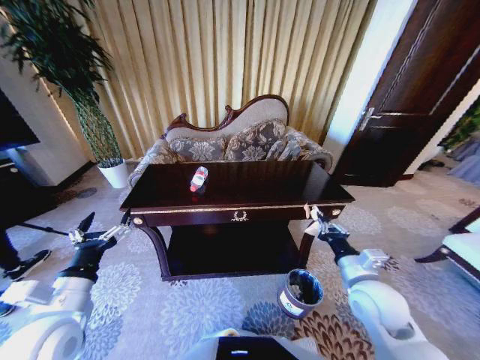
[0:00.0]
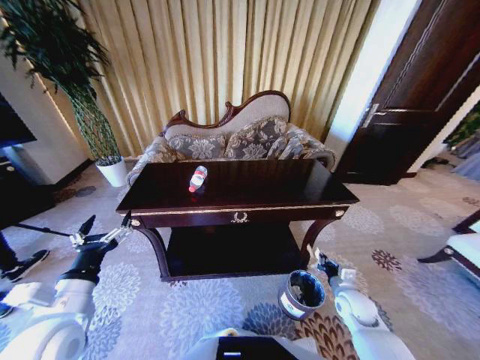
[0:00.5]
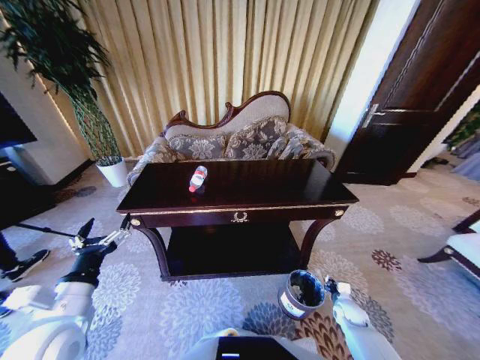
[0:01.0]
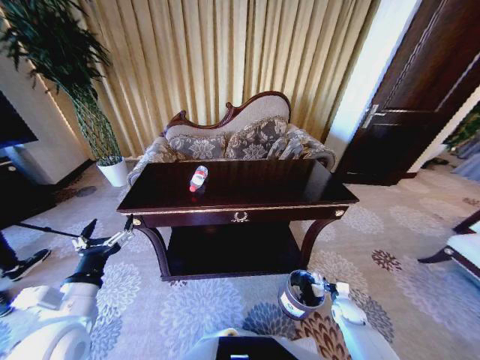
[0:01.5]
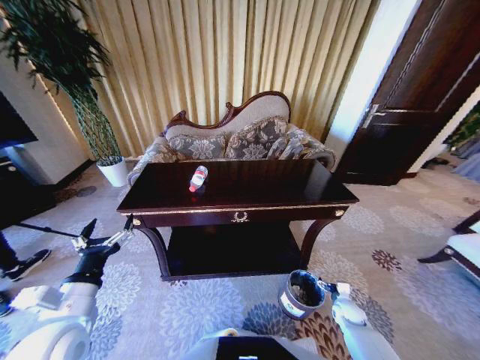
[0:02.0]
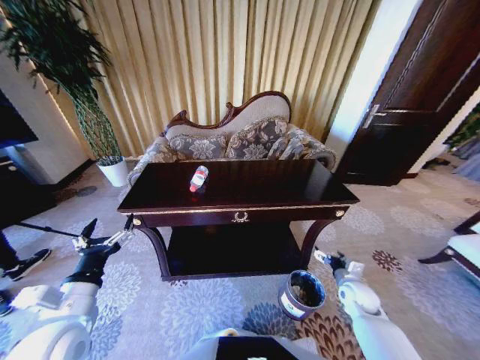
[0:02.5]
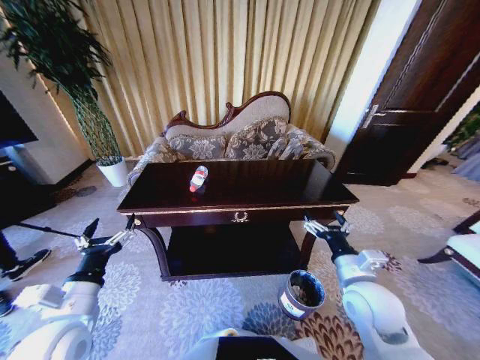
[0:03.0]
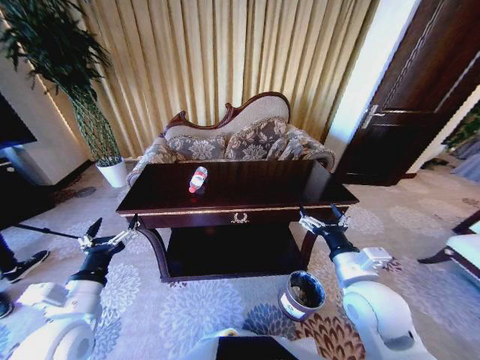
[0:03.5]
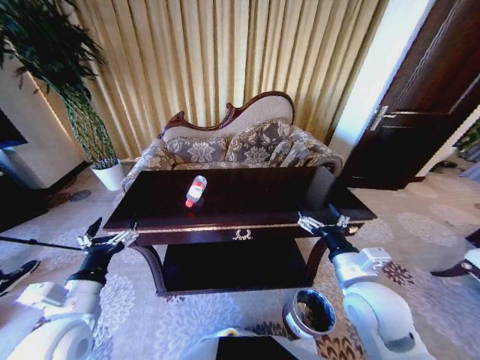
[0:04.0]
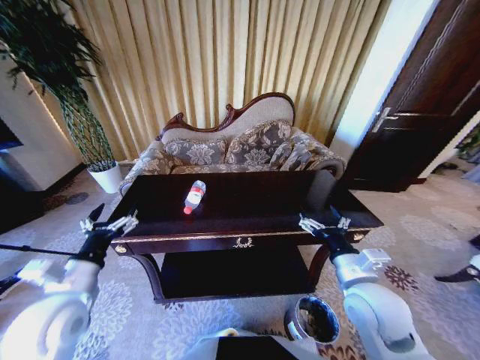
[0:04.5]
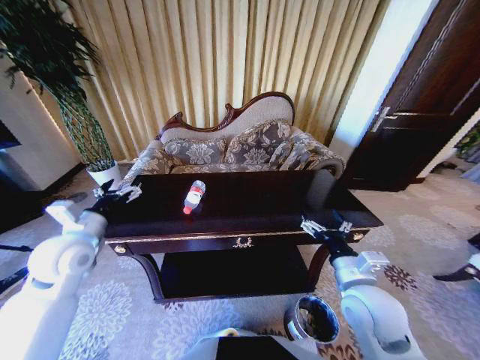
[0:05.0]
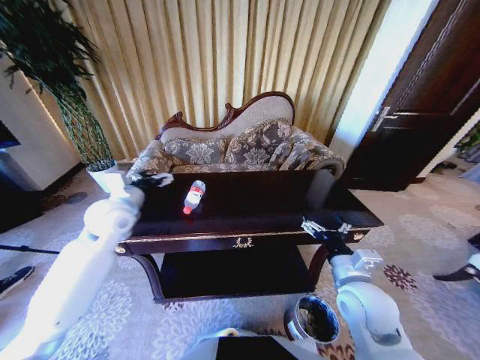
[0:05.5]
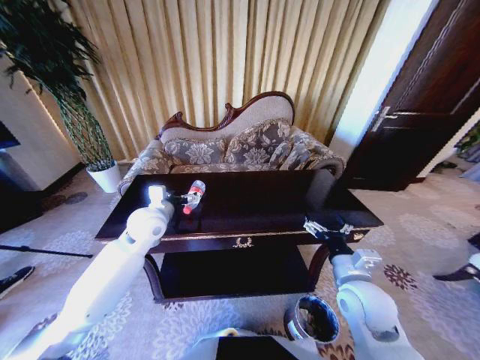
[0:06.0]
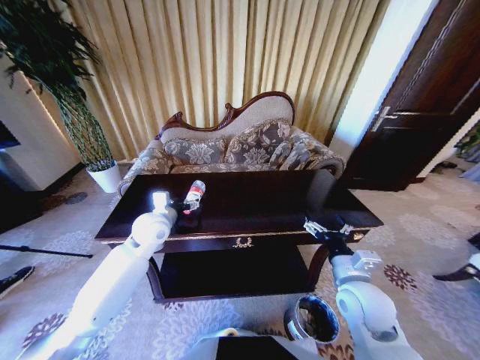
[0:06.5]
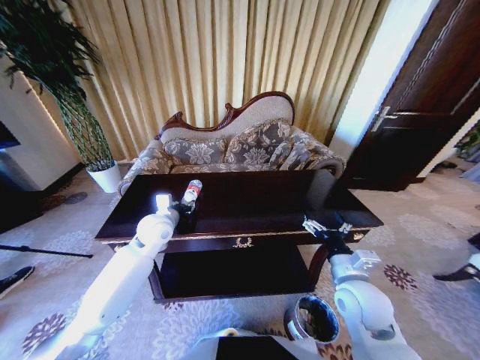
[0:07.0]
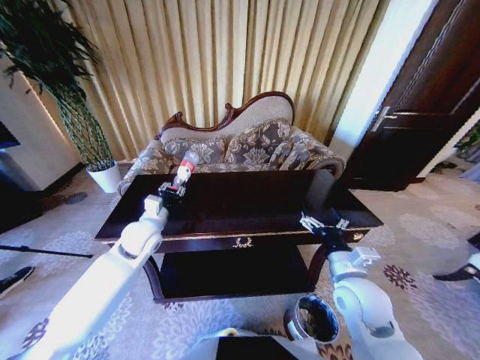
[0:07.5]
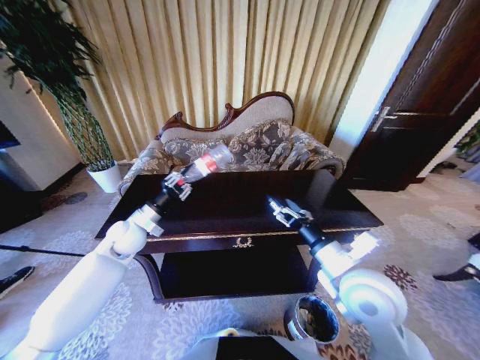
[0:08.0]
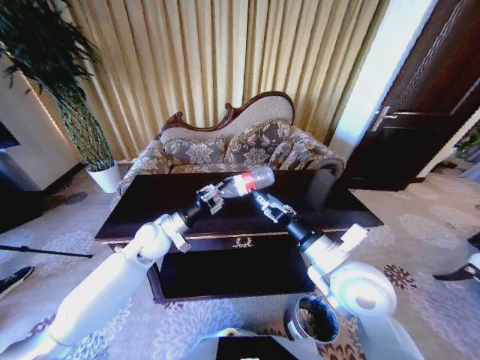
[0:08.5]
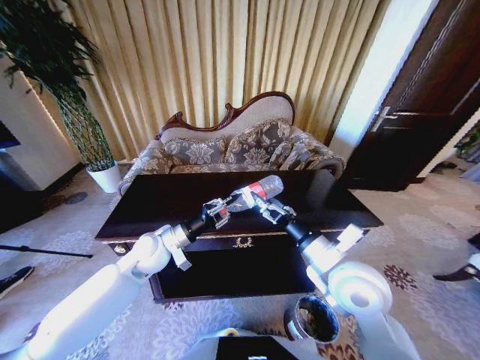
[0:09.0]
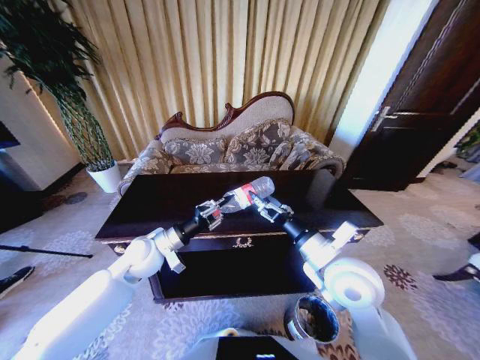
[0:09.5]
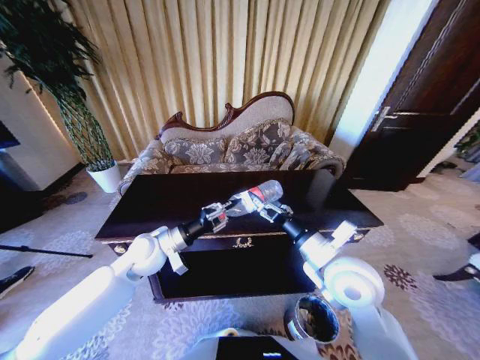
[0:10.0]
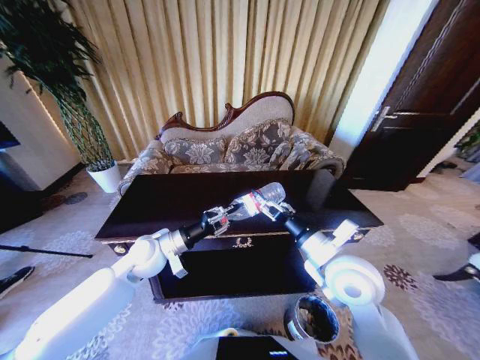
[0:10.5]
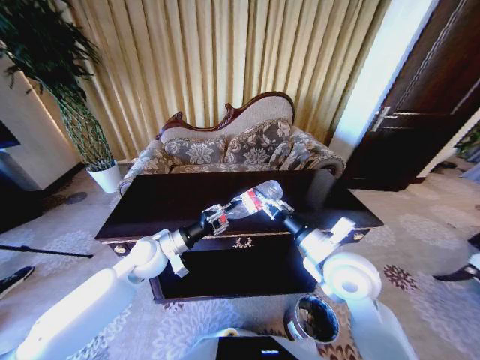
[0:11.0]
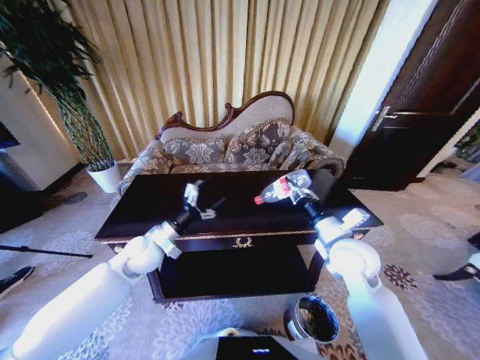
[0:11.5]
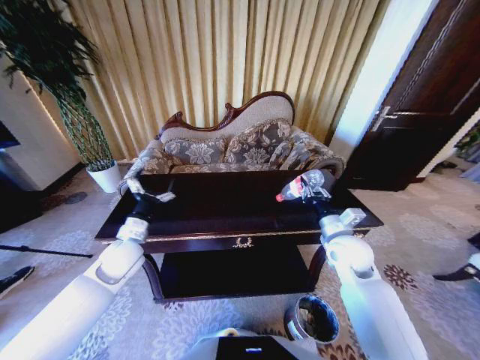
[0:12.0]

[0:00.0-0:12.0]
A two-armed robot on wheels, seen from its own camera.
Task of the whole recording: Move to the front of the table and place the trash on the table into the trash bin.
0:00.0 to 0:02.0: The right gripper travels downward by some 30 cm, and opens its fingers.
0:02.0 to 0:04.0: The right gripper travels upward and to the left by approximately 40 cm.
0:04.0 to 0:06.0: The left gripper is displaced forward by about 25 cm.
0:06.0 to 0:08.0: The right gripper shifts approximately 5 cm upward; the left gripper travels to the left and downward by about 10 cm, and closes.
0:08.0 to 0:10.0: The left gripper travels to the right and backward by some 10 cm.
0:10.0 to 0:12.0: The right gripper heads forward, to the right and downward, covering approximately 15 cm, and closes up. The left gripper heads to the left, covering some 5 cm, and opens its fingers.

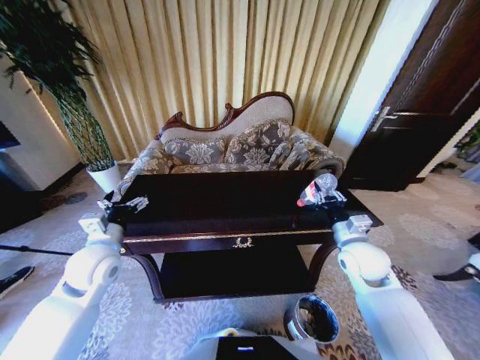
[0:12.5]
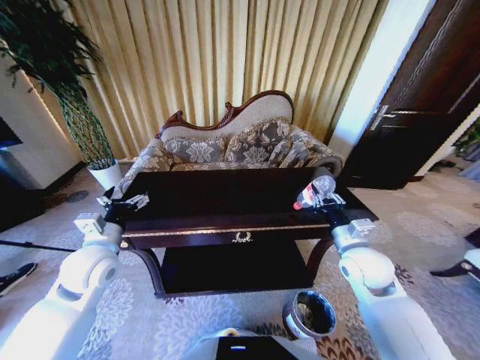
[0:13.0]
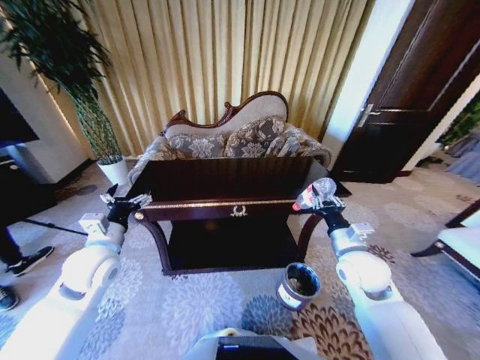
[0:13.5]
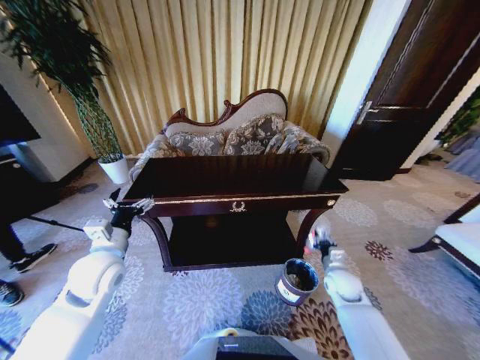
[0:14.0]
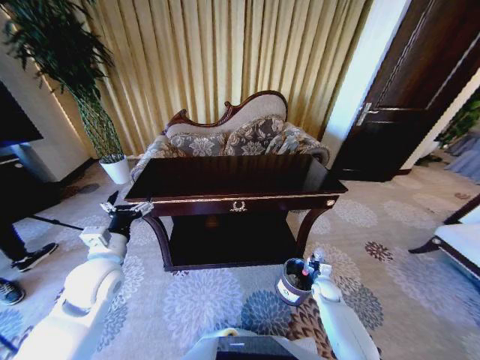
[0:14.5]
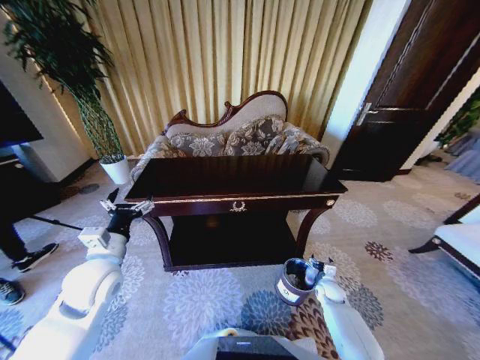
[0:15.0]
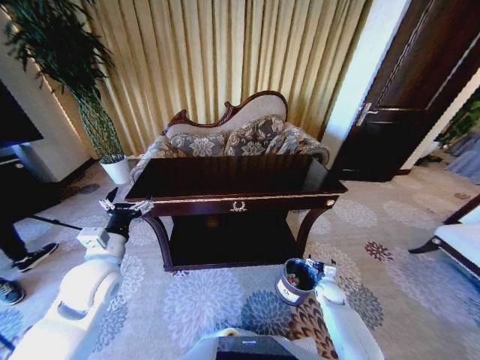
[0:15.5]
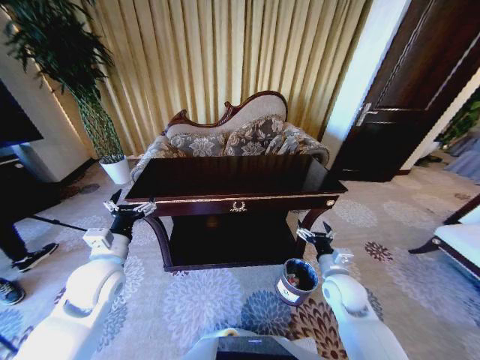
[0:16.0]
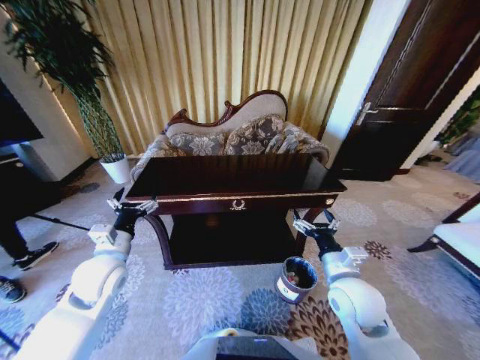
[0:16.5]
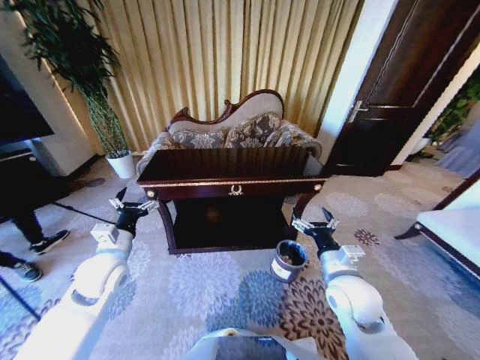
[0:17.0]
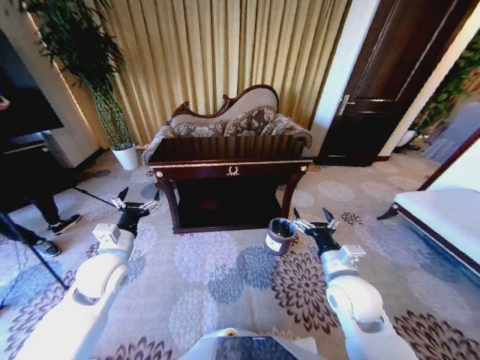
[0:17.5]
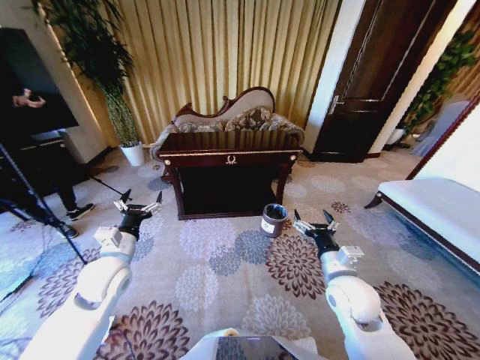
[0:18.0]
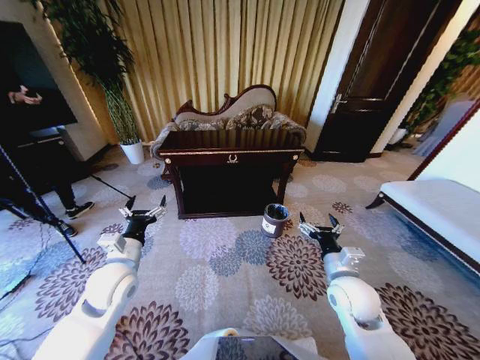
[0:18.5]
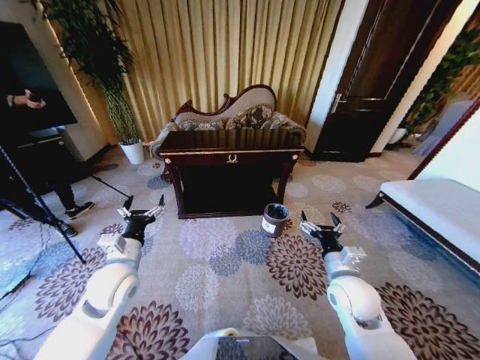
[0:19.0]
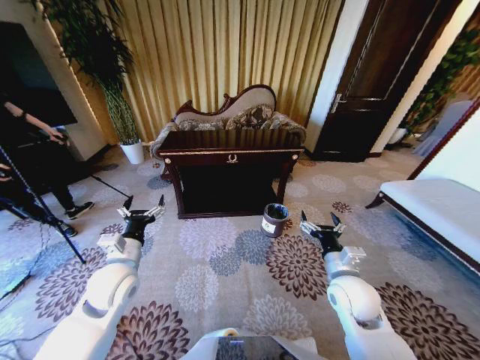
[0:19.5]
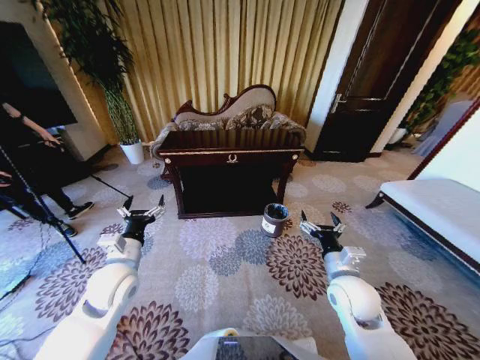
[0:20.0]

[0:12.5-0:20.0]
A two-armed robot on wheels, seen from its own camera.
Task of the whole recording: Move to the front of the table and place the trash on the table into the trash bin.
0:12.5 to 0:14.5: The right gripper shifts some 30 cm downward.
0:14.5 to 0:16.5: The right gripper travels upward by some 30 cm, and opens its fingers.
0:18.0 to 0:20.0: The grippers stay close to where they were, moving slightly.

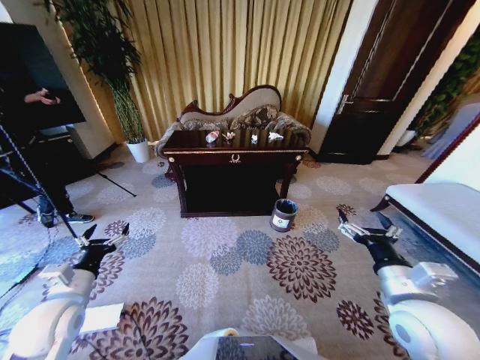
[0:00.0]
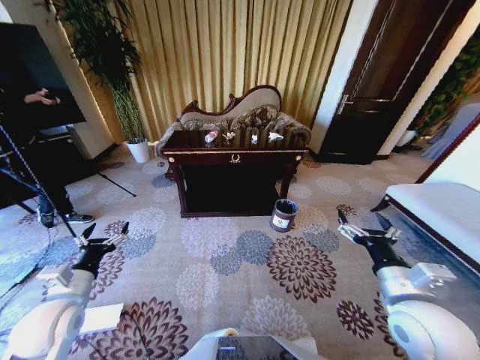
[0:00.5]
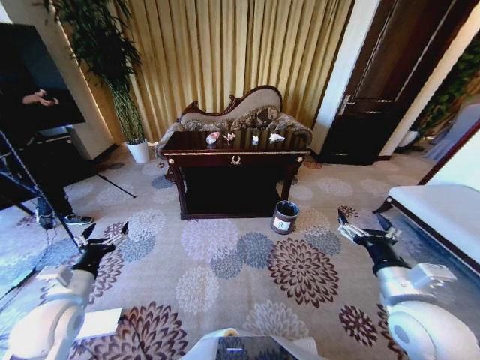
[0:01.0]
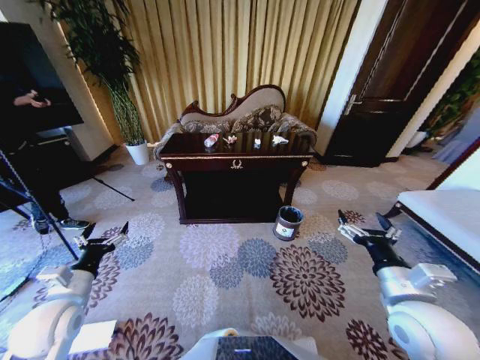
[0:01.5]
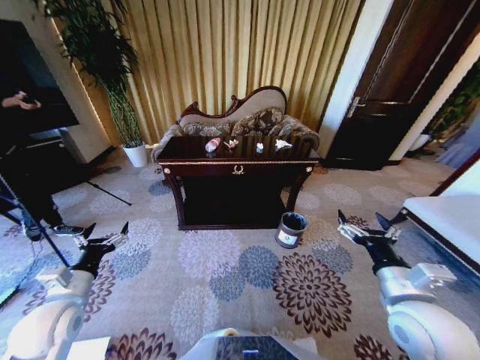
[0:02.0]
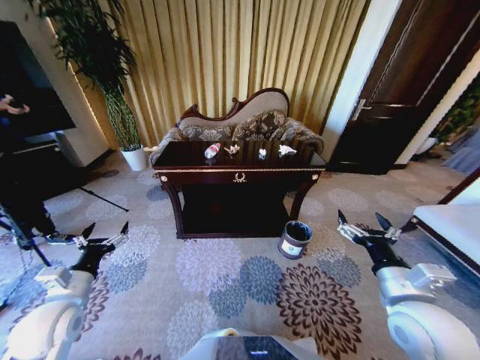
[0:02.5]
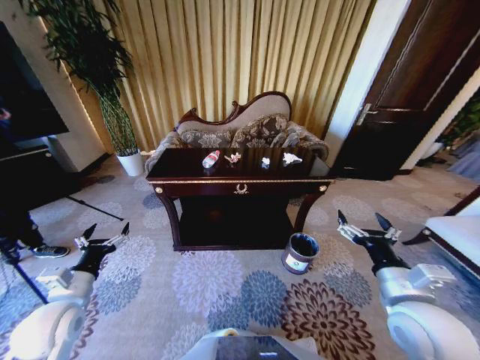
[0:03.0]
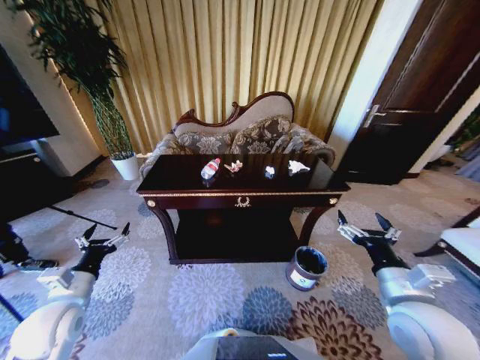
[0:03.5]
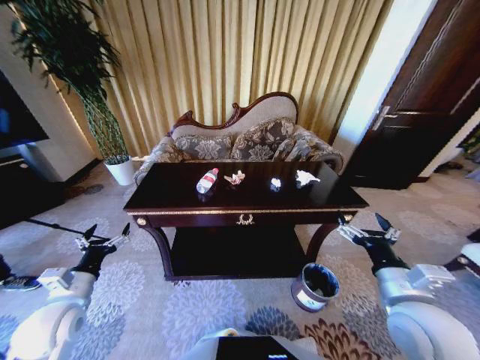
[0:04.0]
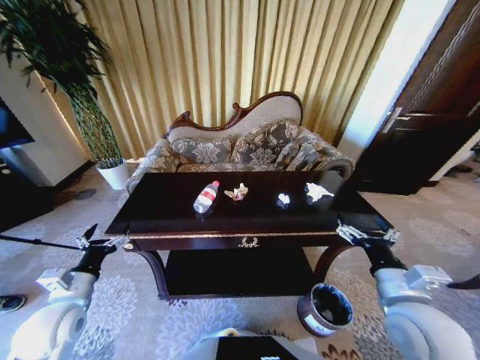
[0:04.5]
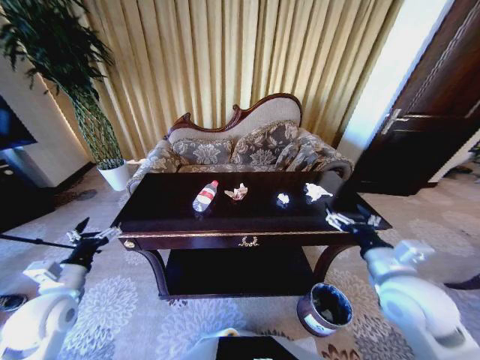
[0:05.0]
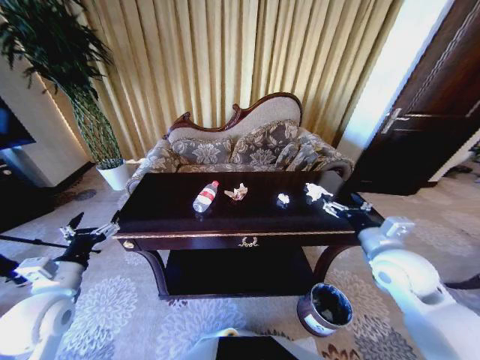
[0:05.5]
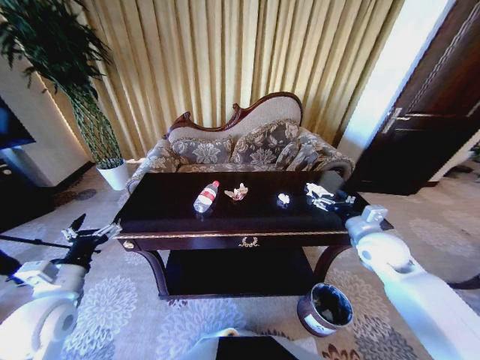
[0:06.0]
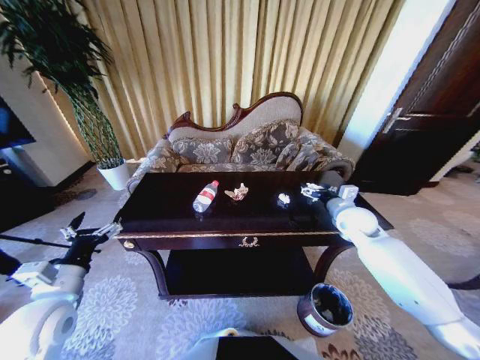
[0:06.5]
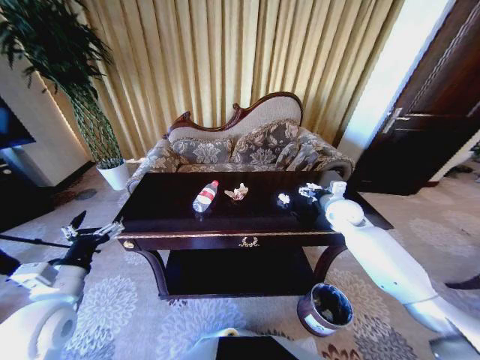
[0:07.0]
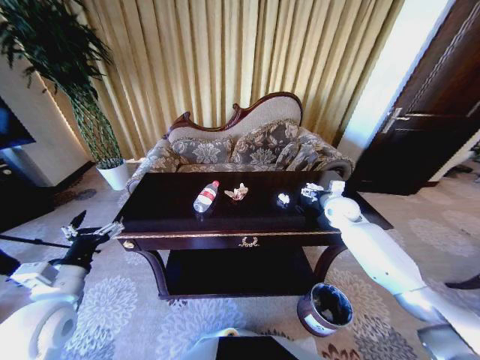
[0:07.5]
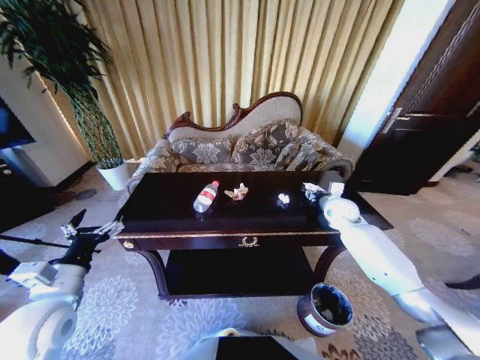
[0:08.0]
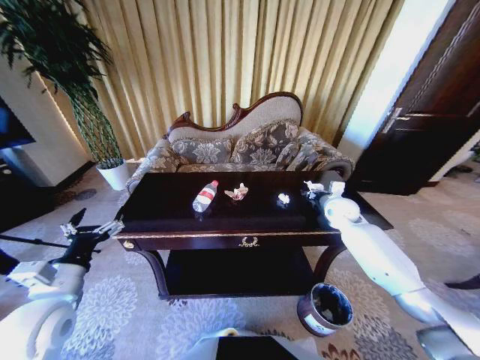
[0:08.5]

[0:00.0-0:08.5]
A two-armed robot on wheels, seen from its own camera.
Task of the whole recording: Move to the front of the table and place the trash on the table into the trash bin.
0:04.0 to 0:06.5: The right gripper heads forward, covering roughly 25 cm. The left gripper changes place by some 5 cm.
0:06.5 to 0:08.5: The right gripper heads forward, covering about 5 cm, and closes.
